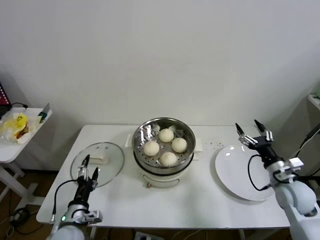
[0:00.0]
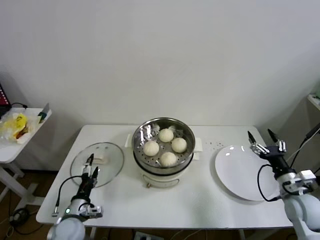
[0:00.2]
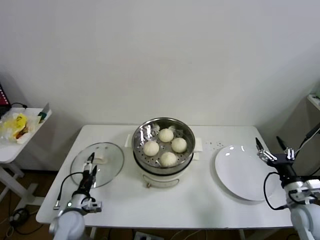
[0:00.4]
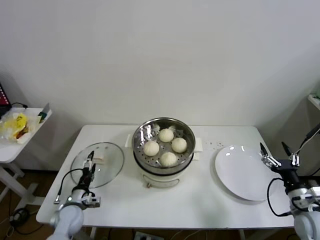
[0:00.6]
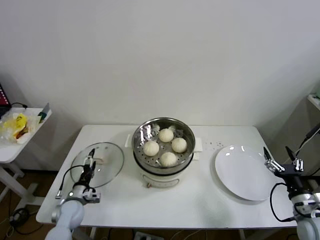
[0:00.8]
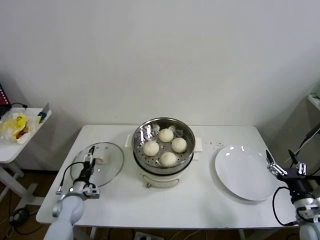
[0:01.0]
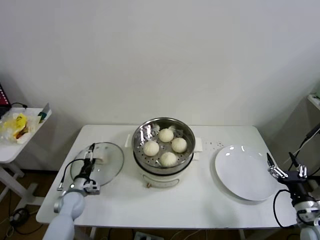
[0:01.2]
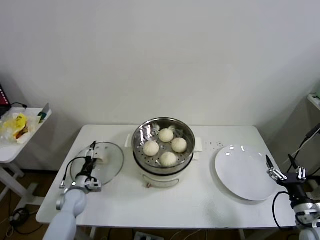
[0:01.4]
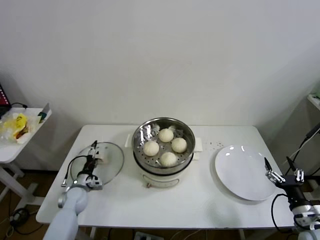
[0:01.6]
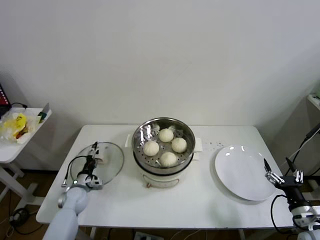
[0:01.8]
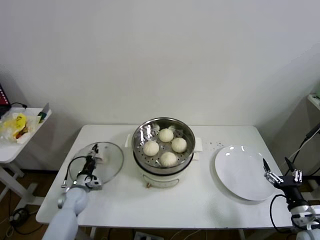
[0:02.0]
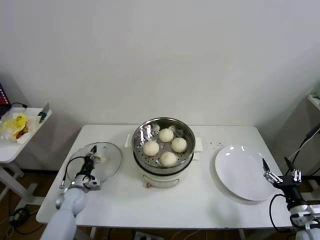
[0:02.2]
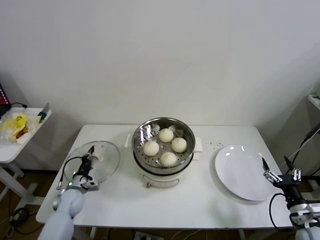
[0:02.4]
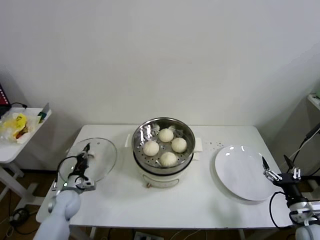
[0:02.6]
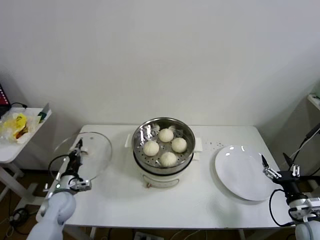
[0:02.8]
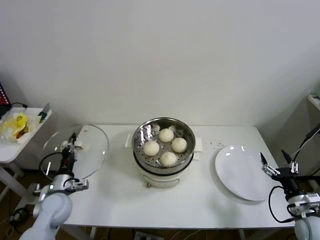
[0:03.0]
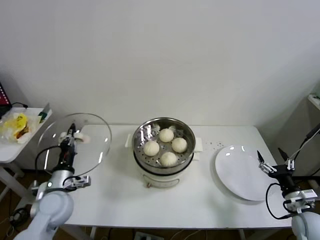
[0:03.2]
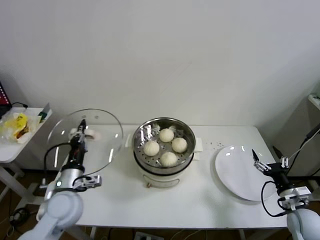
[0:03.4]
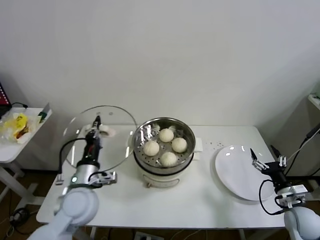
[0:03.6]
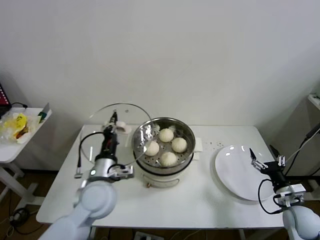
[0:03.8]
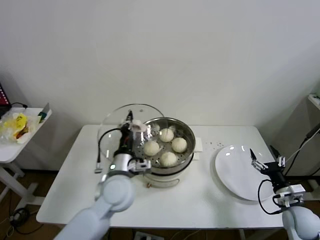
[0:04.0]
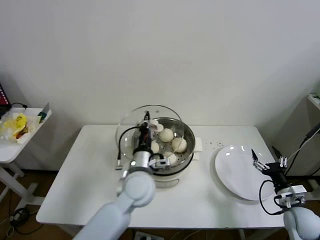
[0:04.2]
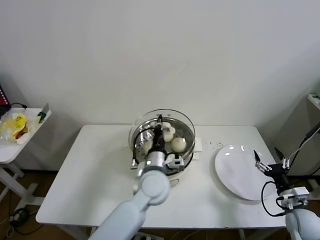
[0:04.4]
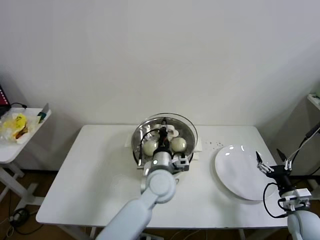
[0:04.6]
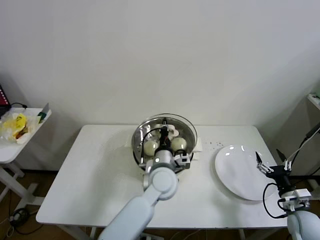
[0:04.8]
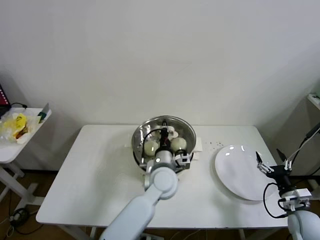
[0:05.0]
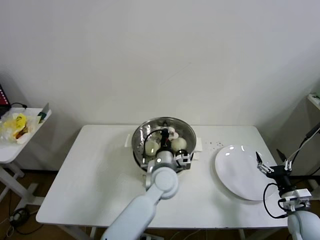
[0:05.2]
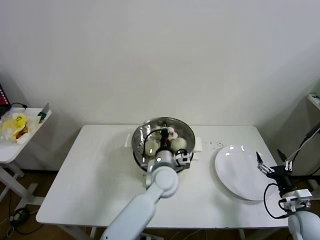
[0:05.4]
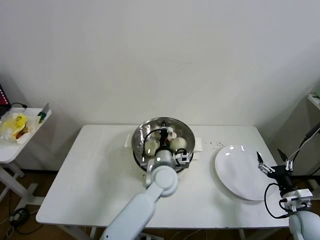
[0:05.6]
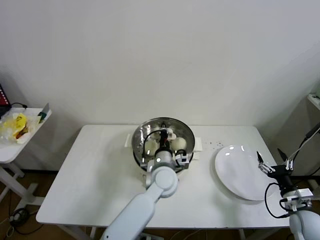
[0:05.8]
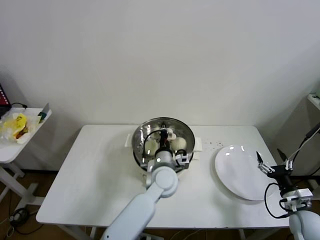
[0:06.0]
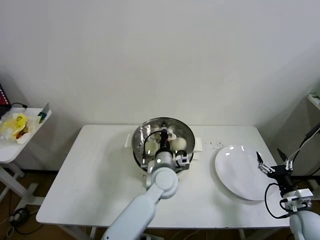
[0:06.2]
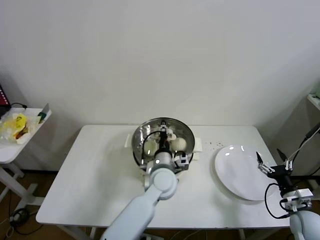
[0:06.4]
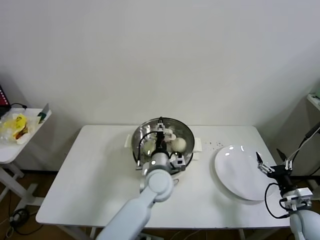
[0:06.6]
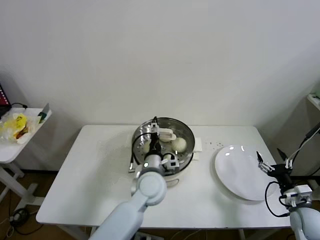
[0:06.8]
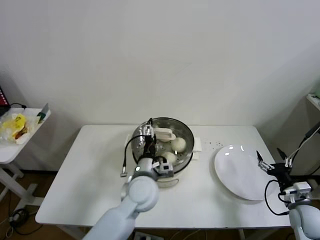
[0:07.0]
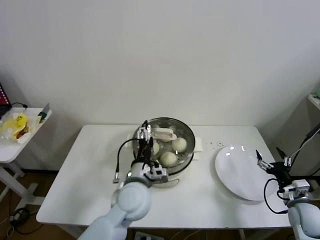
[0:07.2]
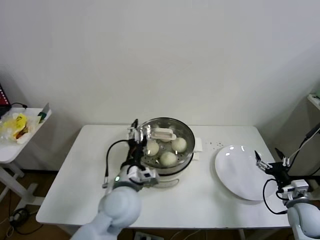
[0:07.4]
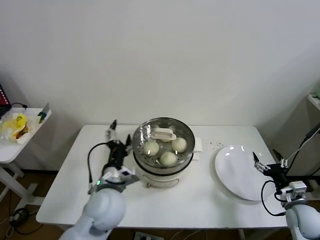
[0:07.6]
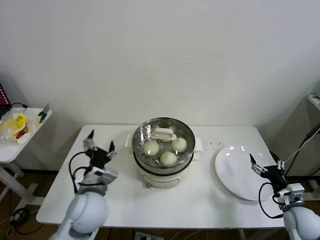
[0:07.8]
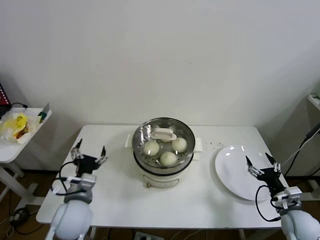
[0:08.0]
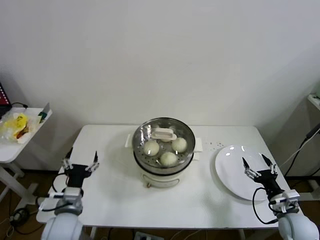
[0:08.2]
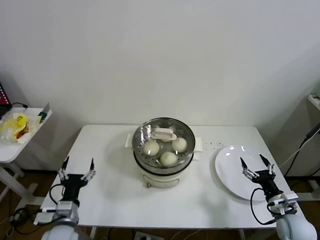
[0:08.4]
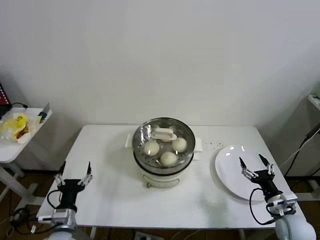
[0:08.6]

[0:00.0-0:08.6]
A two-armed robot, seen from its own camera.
Step, 0.0 to 2.2 s: Grasp the pot lid with left gripper.
Step, 2.4 to 6.0 s: Place the pot lid on the steamer with left gripper.
0.0 to 1.4 s: The left gripper is displaced forward, downward and to the left by about 20 cm, while the right gripper is displaced backward and downward by approximately 15 cm.
1.4 to 2.8 s: The left gripper is displaced upward by some 5 cm, and closes.
2.8 to 4.4 s: The left gripper shifts about 35 cm to the right and upward.
4.4 to 5.8 s: The left gripper ends up approximately 5 cm from where it was.
5.8 to 7.2 s: The left gripper goes about 10 cm to the left and backward, and opens.
7.2 to 8.6 s: The right gripper changes place by about 5 cm, while the left gripper travels to the left, downward and backward by about 30 cm.

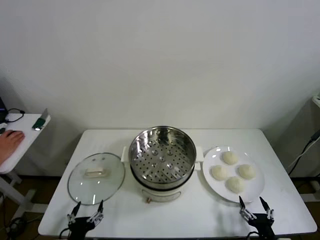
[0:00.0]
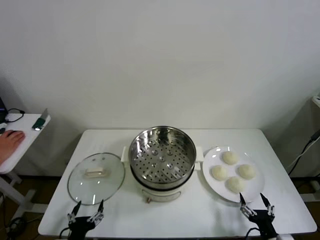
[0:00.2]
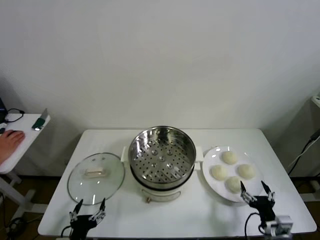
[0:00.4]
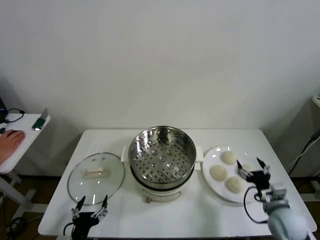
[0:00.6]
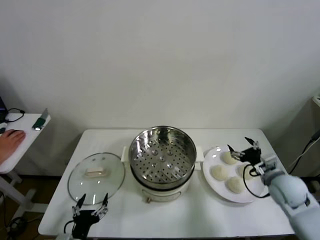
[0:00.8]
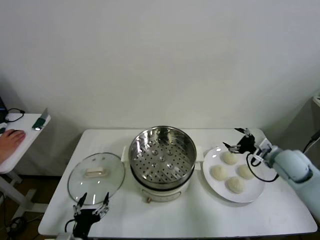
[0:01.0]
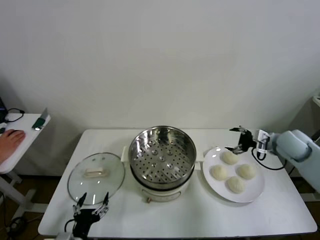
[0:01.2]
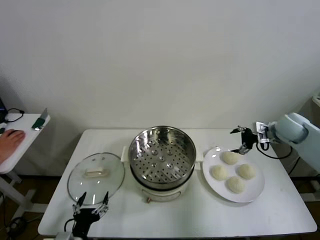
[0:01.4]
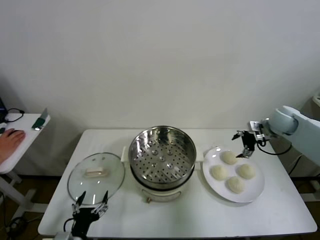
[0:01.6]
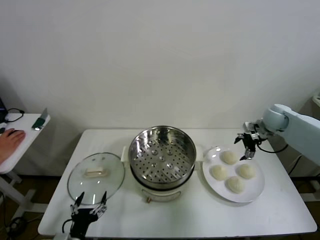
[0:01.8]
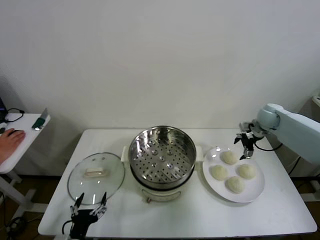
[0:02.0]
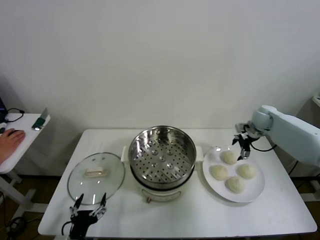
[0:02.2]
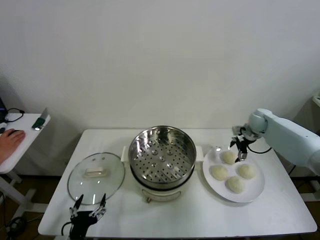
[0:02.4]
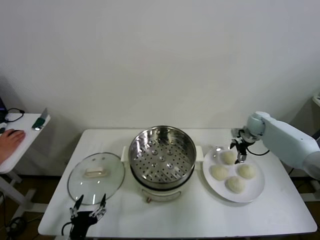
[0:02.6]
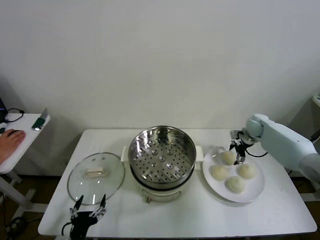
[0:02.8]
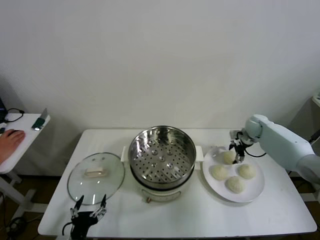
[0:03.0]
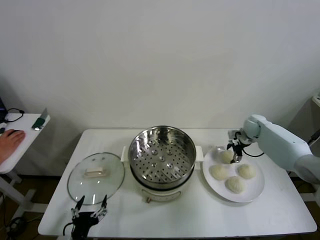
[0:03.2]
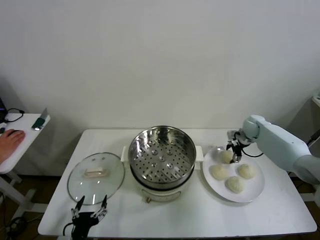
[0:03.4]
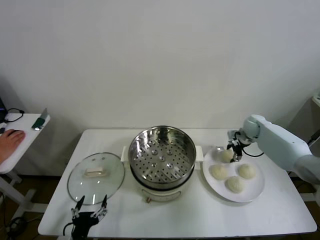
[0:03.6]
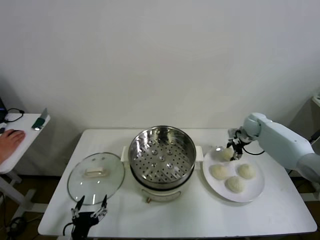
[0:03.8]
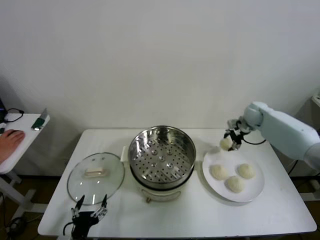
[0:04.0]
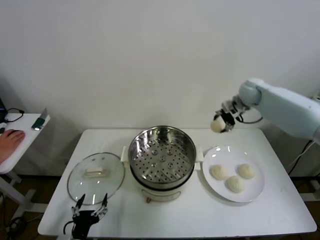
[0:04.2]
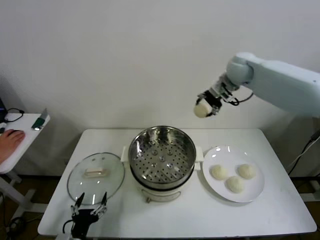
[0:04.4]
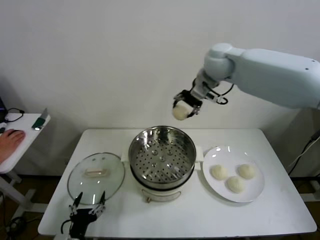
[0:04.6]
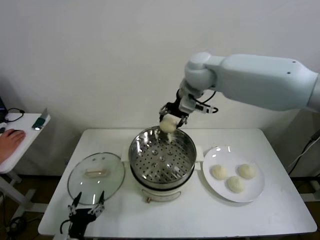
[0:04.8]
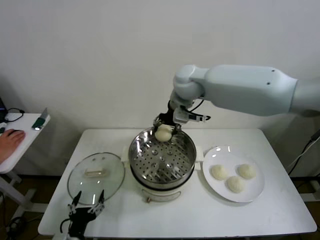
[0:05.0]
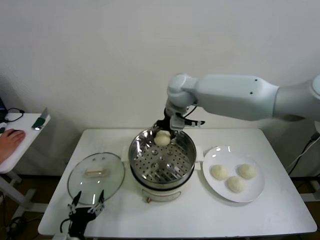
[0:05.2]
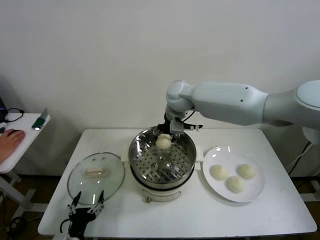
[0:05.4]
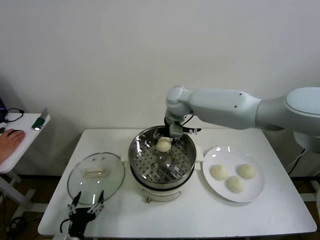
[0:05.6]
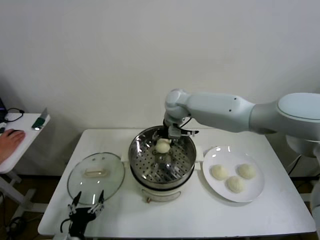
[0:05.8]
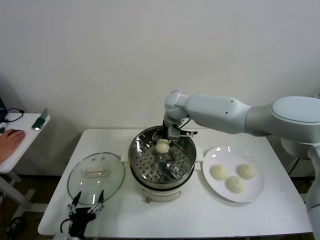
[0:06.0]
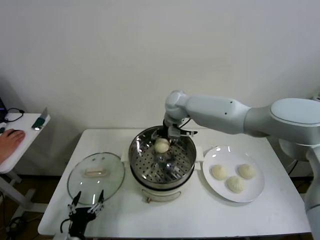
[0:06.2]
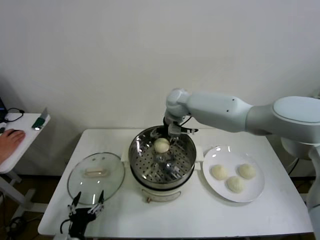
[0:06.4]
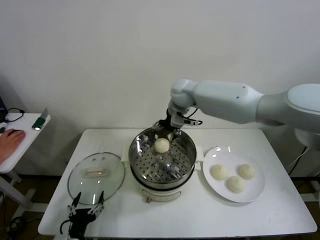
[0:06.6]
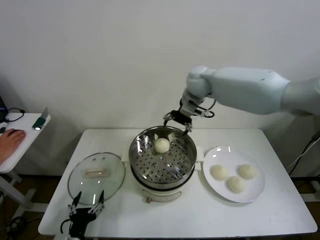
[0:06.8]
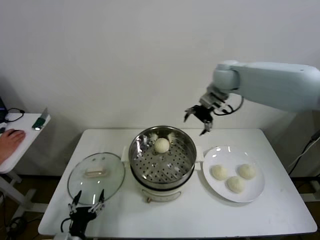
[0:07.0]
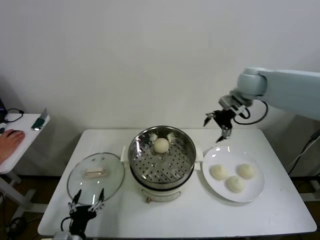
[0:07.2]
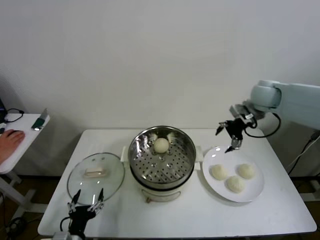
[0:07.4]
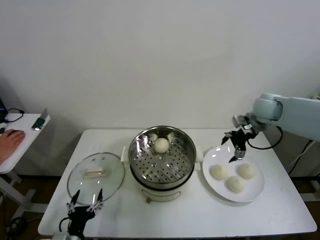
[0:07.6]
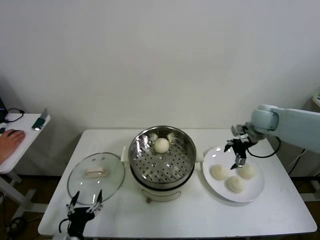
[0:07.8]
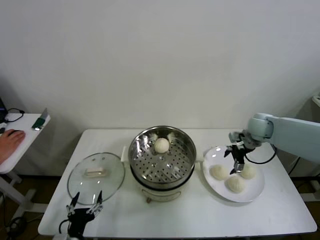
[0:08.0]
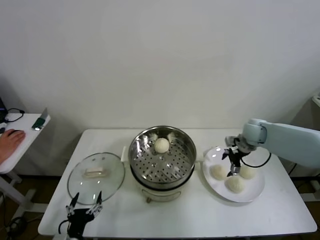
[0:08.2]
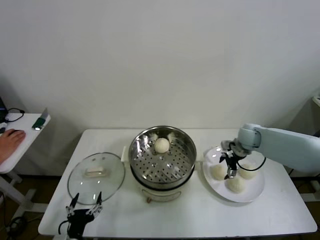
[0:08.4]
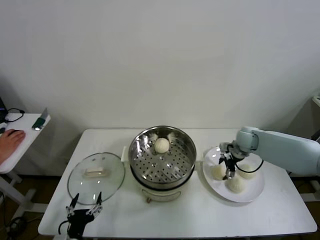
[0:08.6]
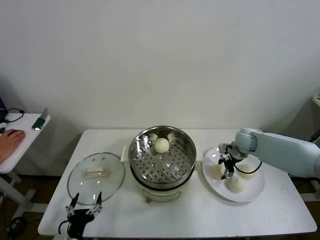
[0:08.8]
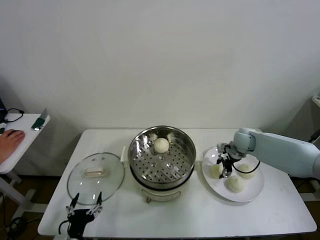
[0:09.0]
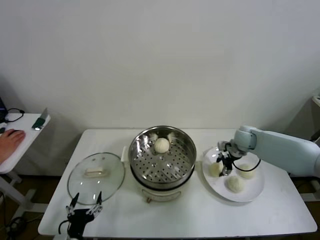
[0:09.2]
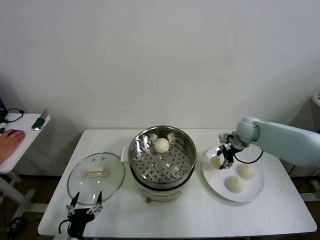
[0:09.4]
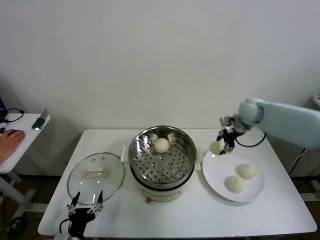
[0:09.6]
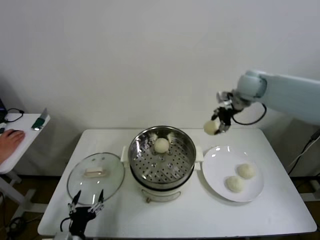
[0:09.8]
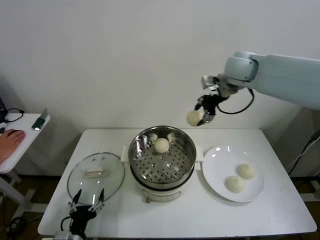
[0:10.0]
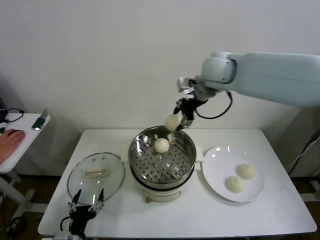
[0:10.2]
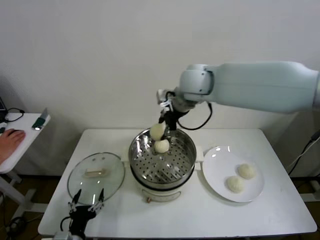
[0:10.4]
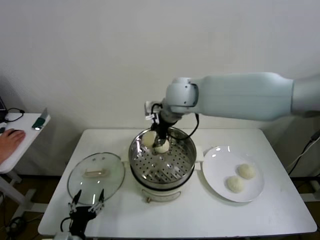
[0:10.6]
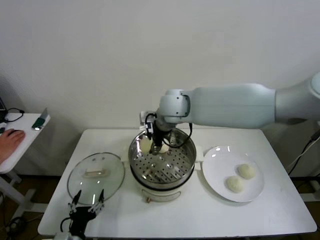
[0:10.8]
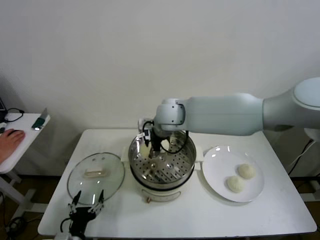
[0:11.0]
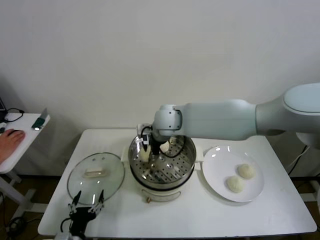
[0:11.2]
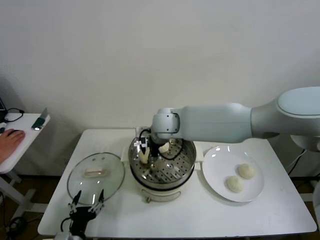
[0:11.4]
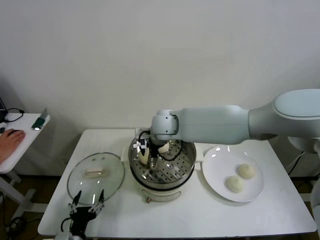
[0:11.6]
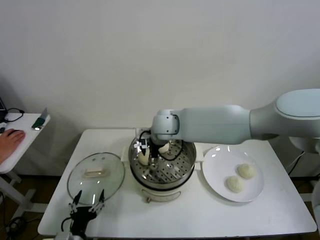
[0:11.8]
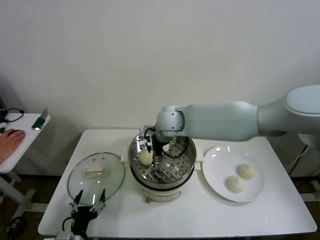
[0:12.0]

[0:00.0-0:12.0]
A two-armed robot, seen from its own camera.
Step, 0.0 to 3.4 s: Grasp the baozi in the plate with right gripper.
Step, 3.6 to 6.2 s: Place the baozi on the steamer with right gripper.
Step, 6.6 to 8.8 s: Grasp the baozi in the plate with right gripper.
Step, 9.0 to 11.8 s: Place the baozi on the steamer with right gripper.
1.6 to 3.0 s: The right gripper travels downward and forward by roughly 10 cm.
3.0 to 4.4 s: The right gripper shifts approximately 35 cm upward and to the left, and closes up.
4.4 to 6.0 s: The right gripper travels downward and to the left by some 20 cm.
6.0 to 7.6 s: The right gripper travels to the right by roughly 30 cm, and opens its fingers.
7.6 to 9.0 s: The right gripper goes some 15 cm downward, and closes.
9.0 to 10.4 s: The right gripper is displaced upward and to the left by about 35 cm.
10.4 to 12.0 s: The right gripper moves downward, about 10 cm, and opens.

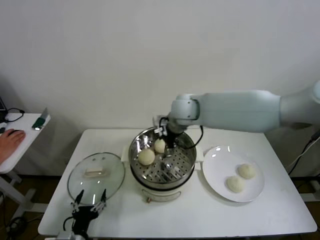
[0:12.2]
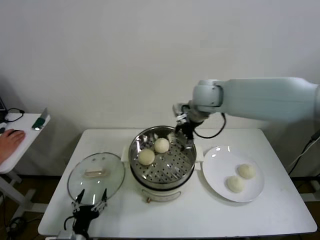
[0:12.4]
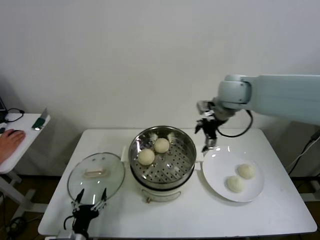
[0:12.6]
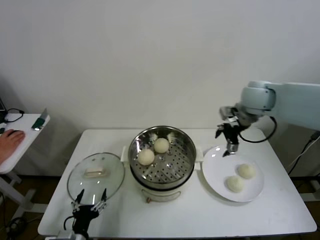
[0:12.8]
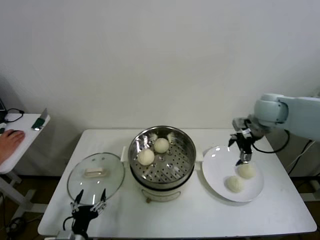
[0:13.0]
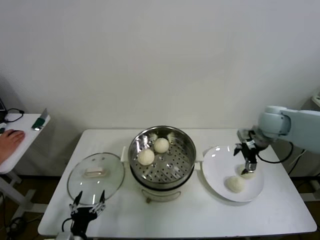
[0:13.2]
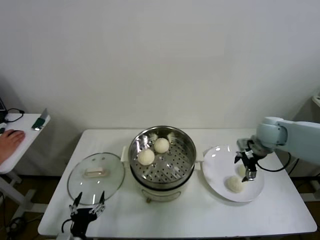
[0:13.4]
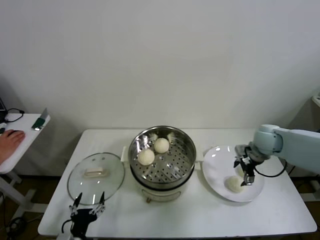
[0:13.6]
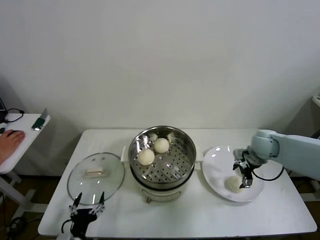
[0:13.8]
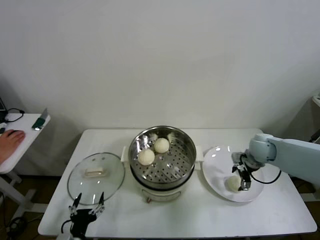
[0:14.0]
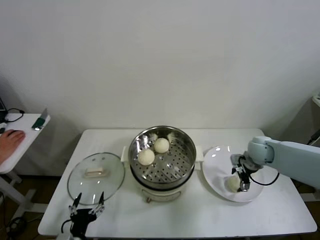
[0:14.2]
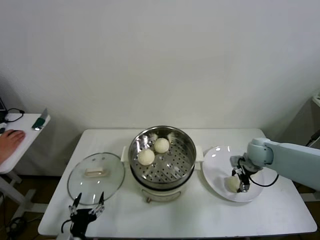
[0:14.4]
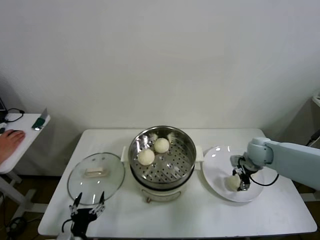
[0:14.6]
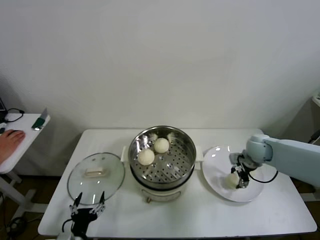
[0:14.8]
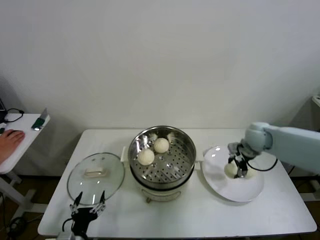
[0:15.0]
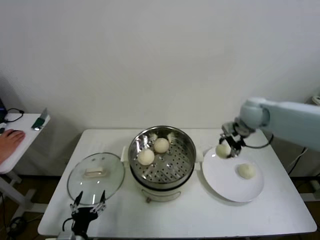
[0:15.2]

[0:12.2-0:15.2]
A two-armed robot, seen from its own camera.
Step, 12.2 to 14.4 s: Grasp the baozi in the plate with right gripper.
12.2 to 13.8 s: The right gripper is displaced to the right and downward by roughly 30 cm.
13.8 to 15.2 s: The right gripper travels upward and to the left by approximately 15 cm, and closes up.
